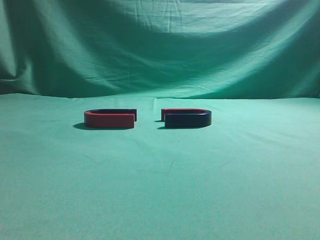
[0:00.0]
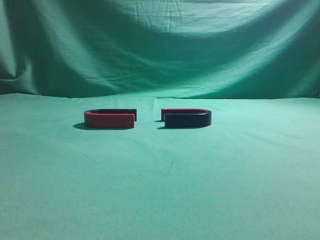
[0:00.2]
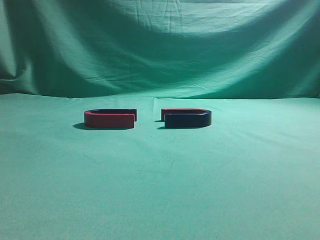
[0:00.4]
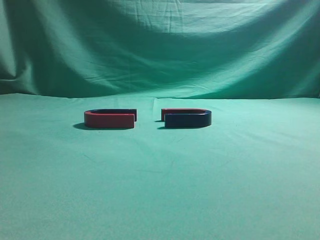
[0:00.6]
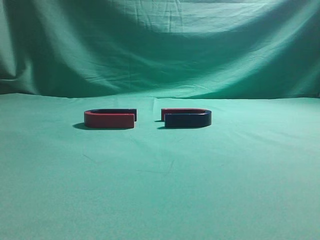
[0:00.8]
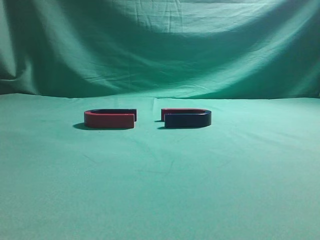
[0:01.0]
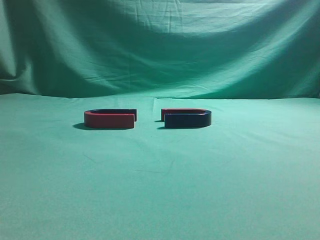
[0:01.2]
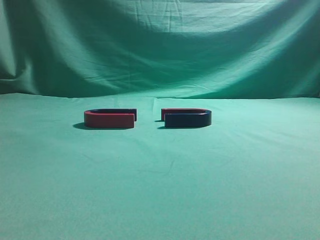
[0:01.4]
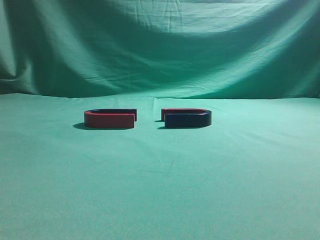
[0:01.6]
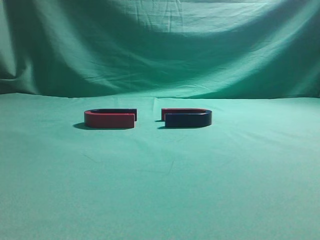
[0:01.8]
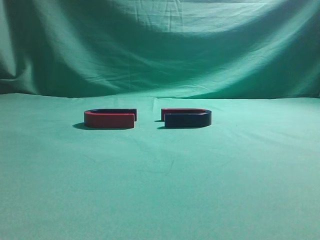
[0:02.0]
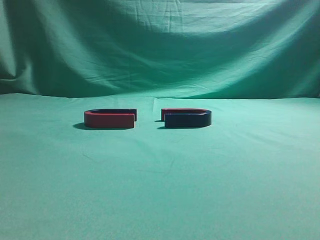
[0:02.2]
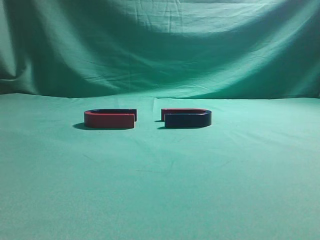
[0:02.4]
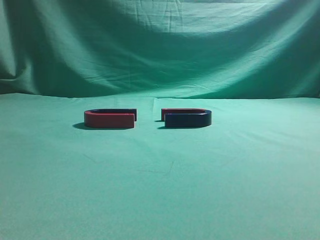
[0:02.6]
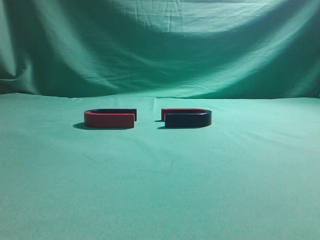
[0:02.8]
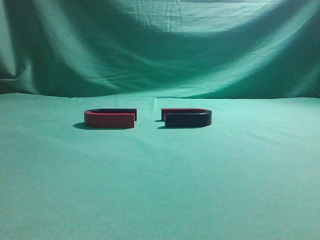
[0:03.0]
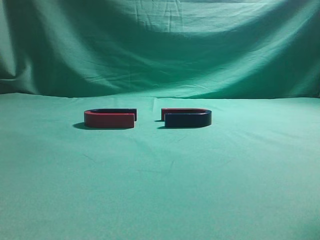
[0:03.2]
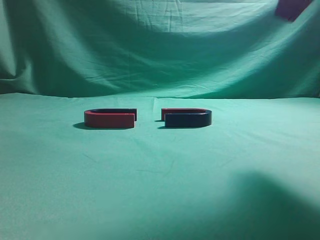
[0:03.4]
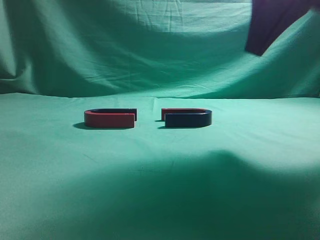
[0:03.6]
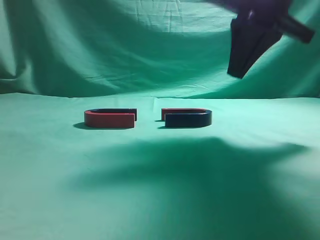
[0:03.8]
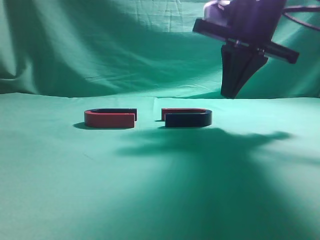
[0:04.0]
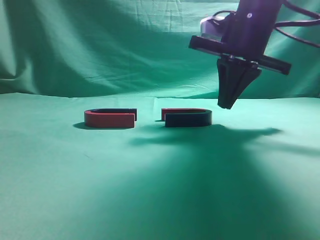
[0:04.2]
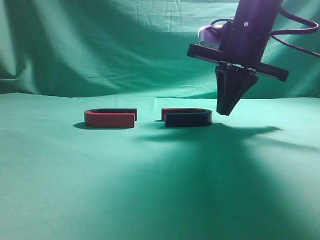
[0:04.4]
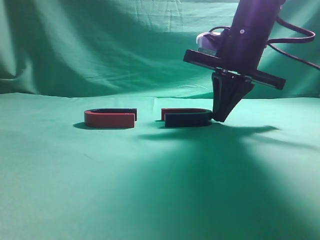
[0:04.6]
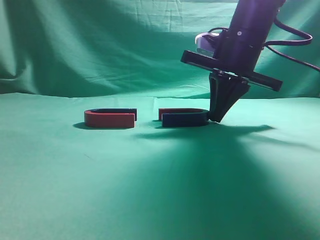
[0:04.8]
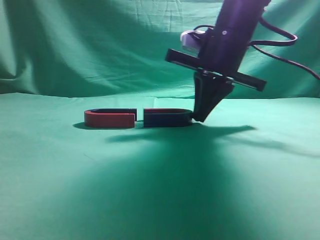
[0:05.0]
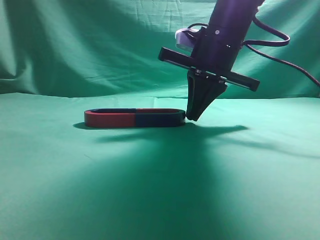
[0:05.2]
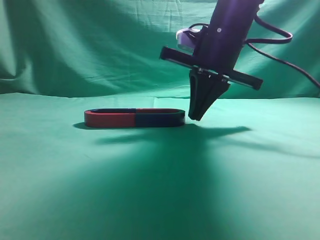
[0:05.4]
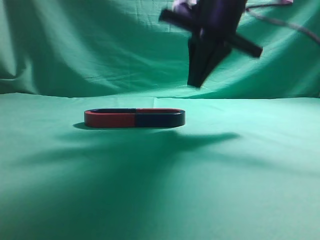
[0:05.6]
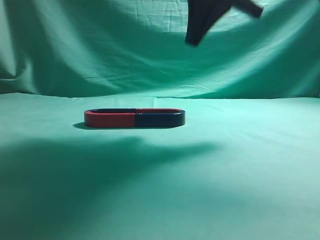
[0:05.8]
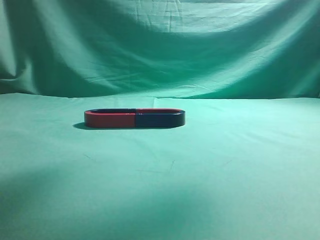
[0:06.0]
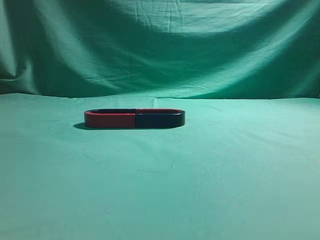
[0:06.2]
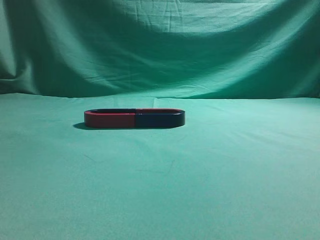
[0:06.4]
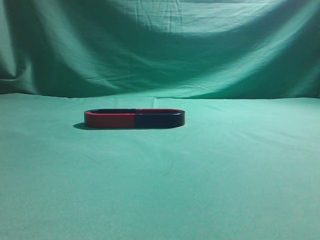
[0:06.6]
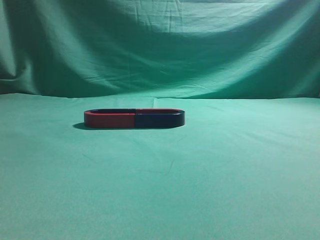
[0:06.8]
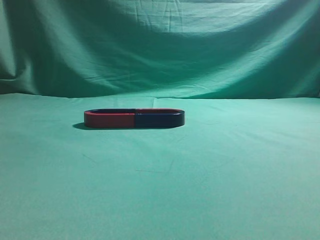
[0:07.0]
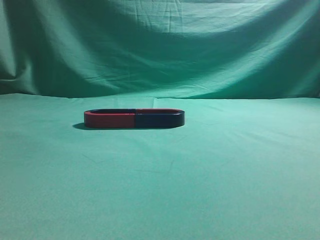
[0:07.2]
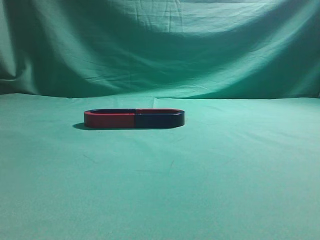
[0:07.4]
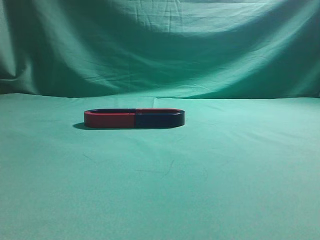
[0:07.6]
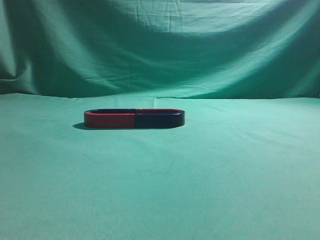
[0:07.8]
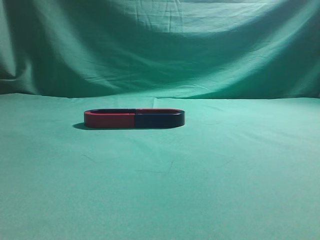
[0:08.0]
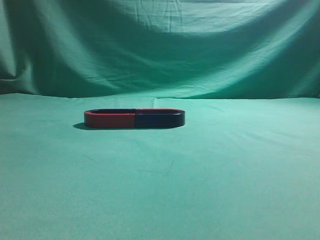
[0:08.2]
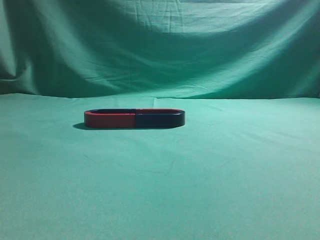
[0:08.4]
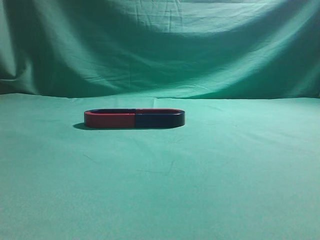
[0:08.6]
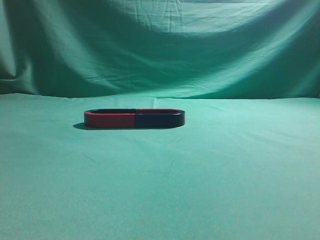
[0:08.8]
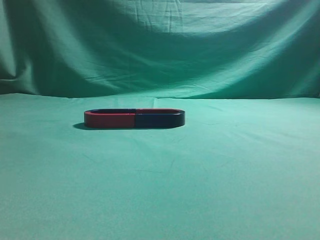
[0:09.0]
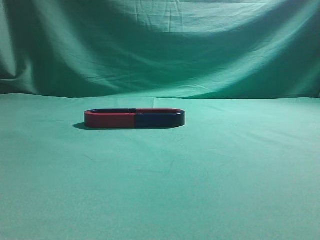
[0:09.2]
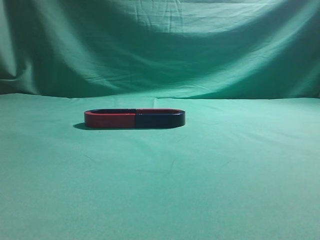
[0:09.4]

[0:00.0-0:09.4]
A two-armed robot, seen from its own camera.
Task of the whole recording: push the magnet on the table from its original position to another position.
Step, 0:00.0 to 0:05.2: Push the magnet on the right to connect the magnet on the left.
0:03.2 to 0:04.8: The right gripper moves forward, downward and to the left, approximately 25 cm.
0:04.8 to 0:06.2: The right gripper heads upward and backward, covering some 25 cm.
0:06.2 to 0:07.8: The right gripper is displaced backward and to the right by about 25 cm.
